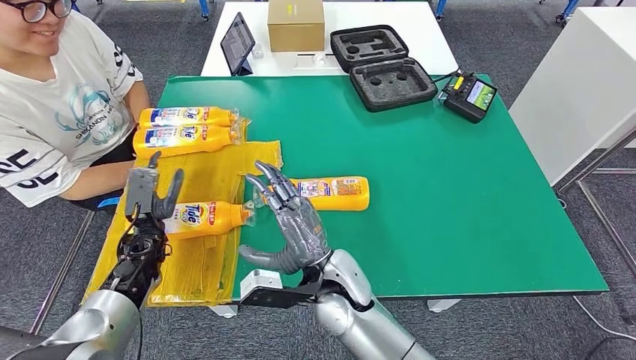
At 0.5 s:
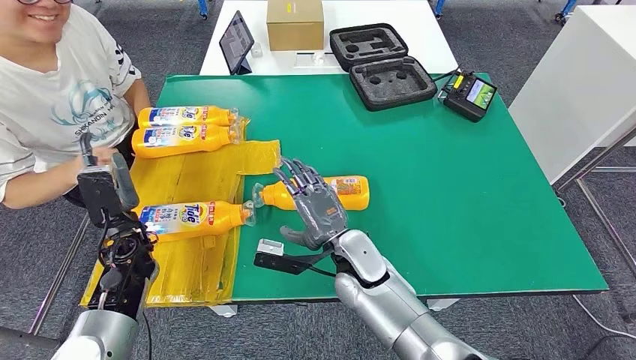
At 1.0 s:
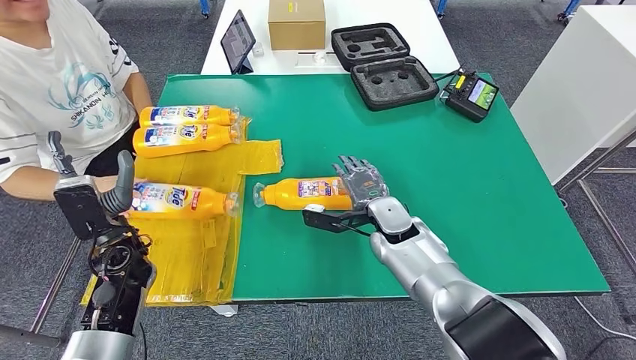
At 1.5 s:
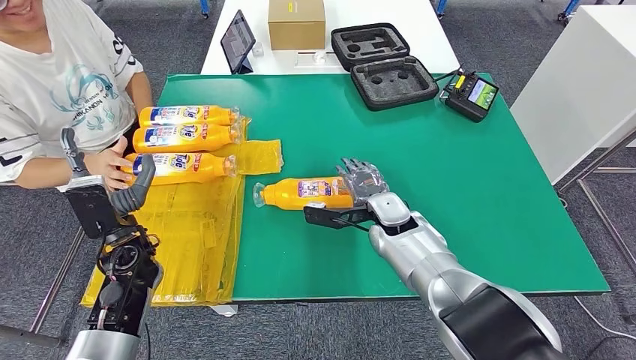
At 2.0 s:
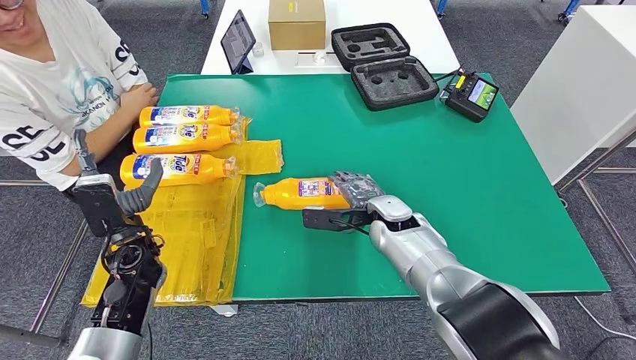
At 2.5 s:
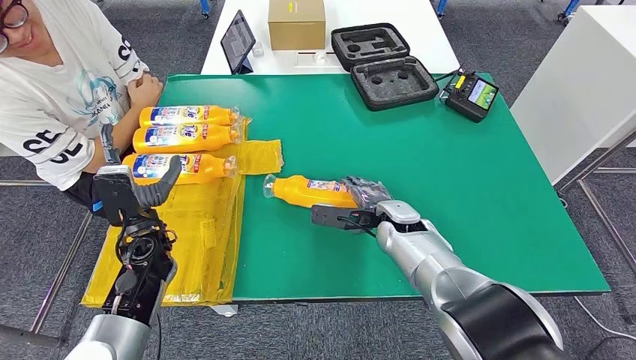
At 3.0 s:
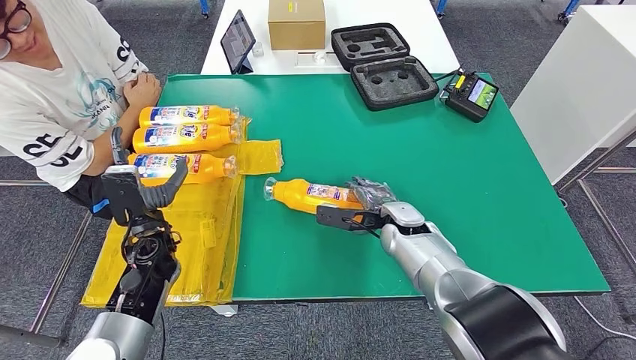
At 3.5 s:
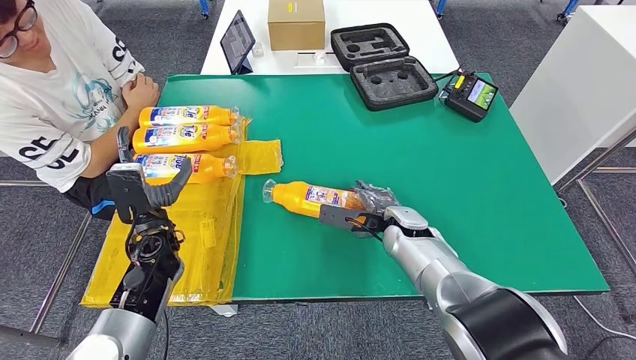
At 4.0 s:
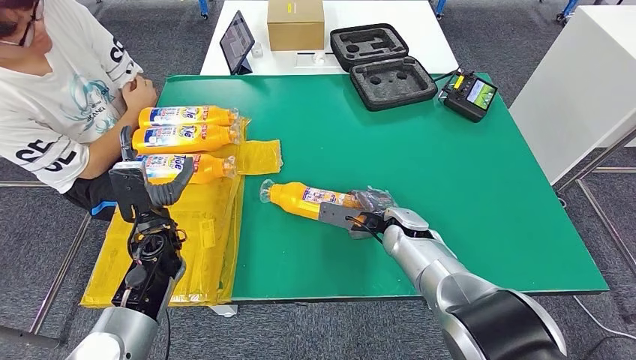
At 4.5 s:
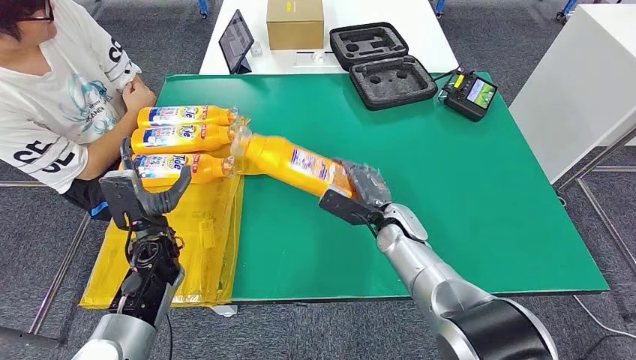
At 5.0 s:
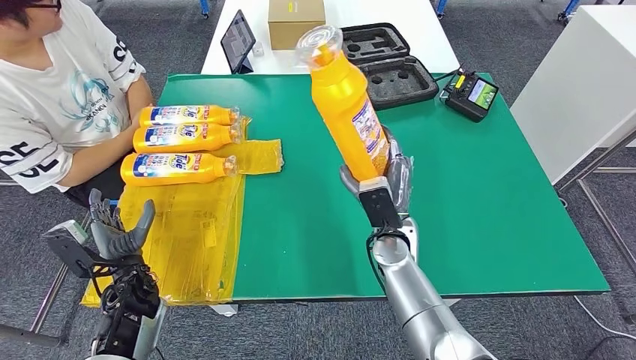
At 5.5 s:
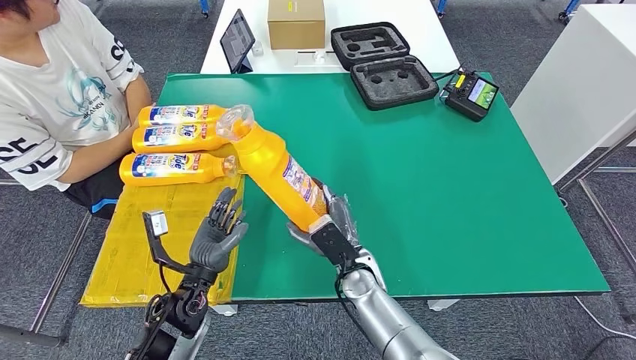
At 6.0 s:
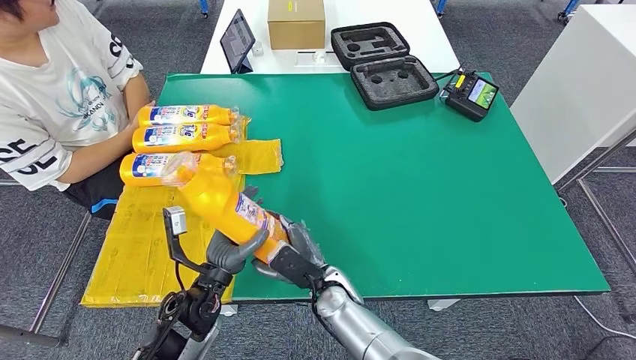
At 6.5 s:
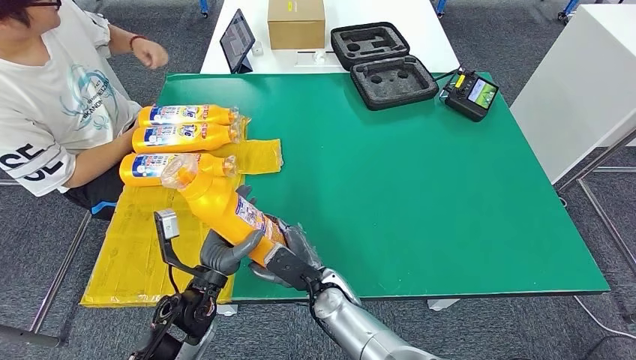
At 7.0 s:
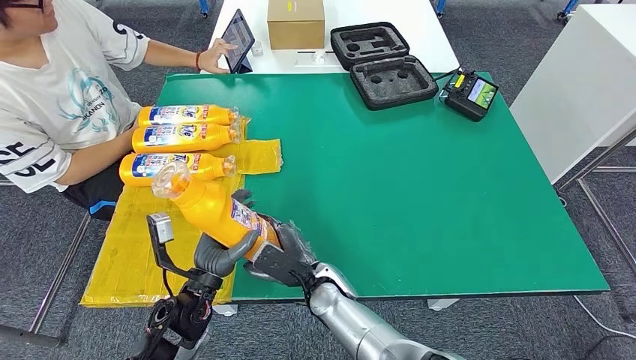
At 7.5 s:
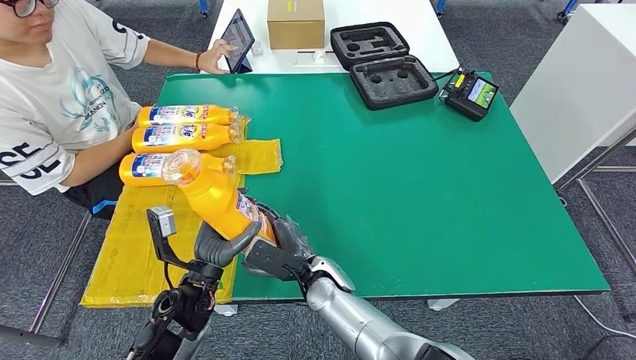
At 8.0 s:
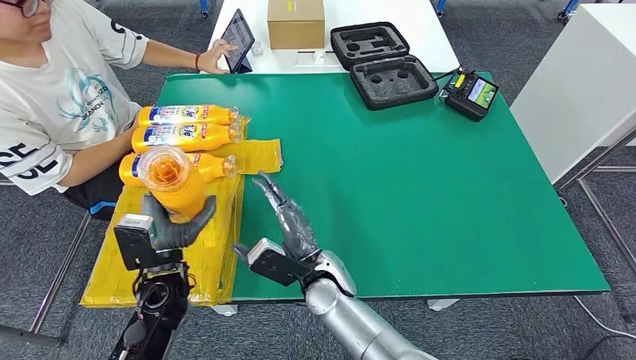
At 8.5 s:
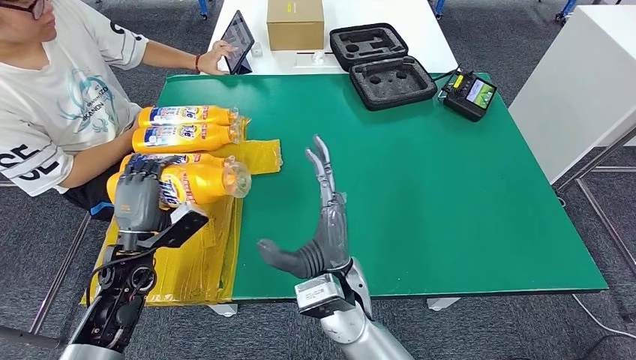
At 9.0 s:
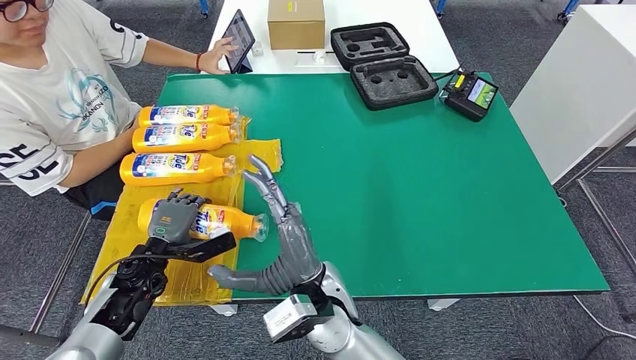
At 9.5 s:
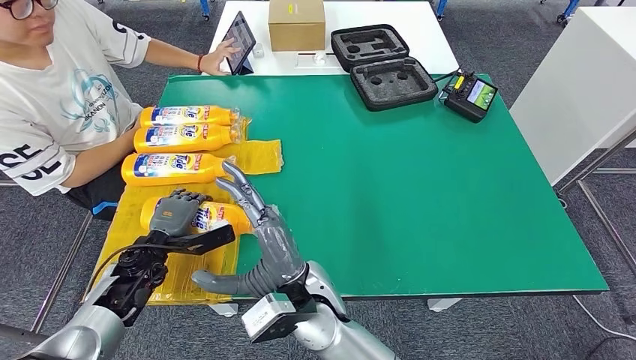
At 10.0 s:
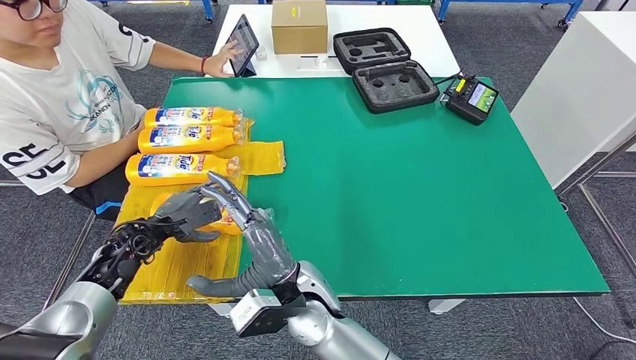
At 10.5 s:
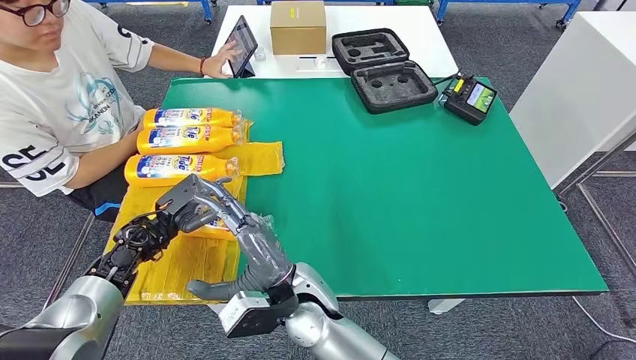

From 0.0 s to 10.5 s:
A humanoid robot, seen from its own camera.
Step, from 2.5 s to 4.5 s: Pick up the fast-moving consumer goods bottle from the table.
Step, from 6.0 s to 10.0 s: Flip the fast-moving consumer goods bottle to the front side.
From 2.0 s to 4.0 s: There are only small adjustments of the hands.
